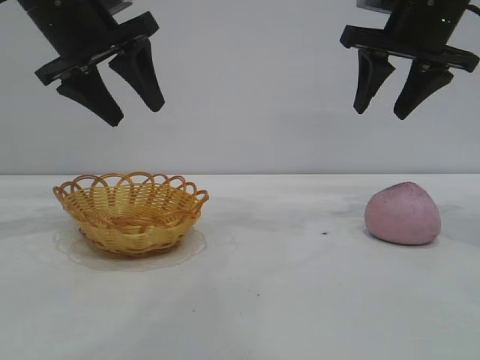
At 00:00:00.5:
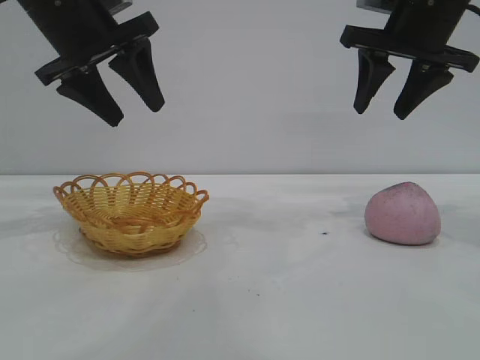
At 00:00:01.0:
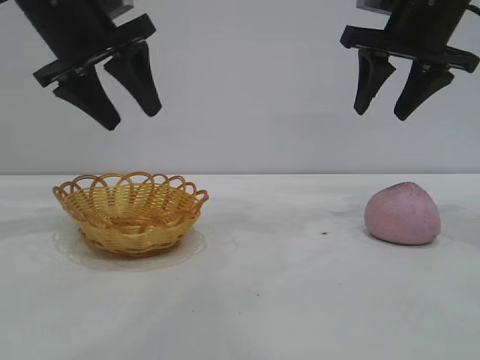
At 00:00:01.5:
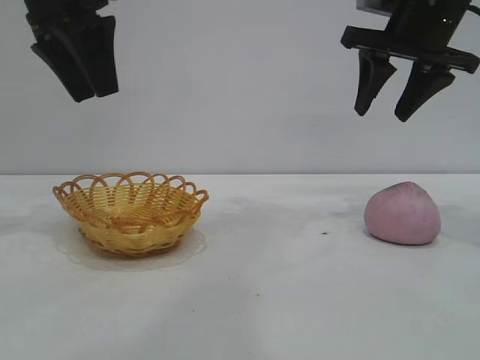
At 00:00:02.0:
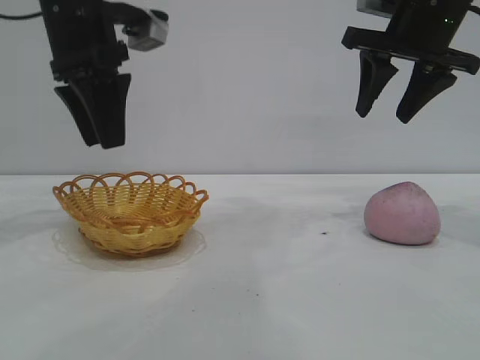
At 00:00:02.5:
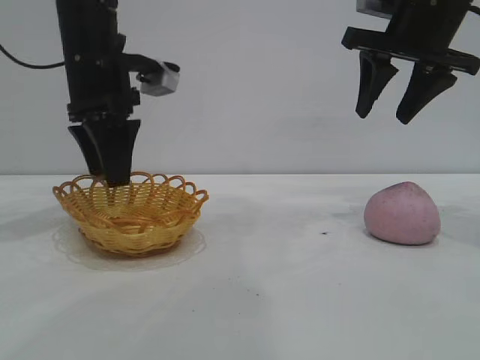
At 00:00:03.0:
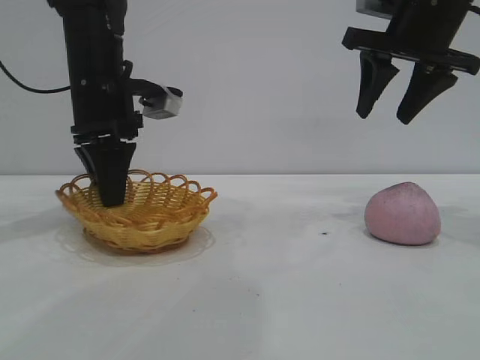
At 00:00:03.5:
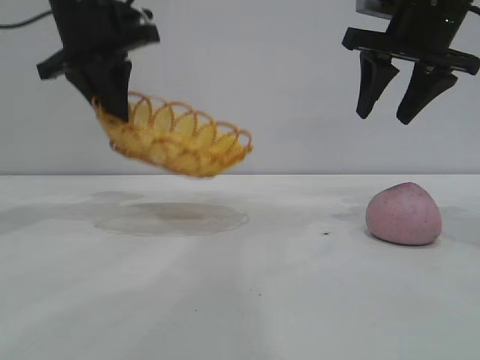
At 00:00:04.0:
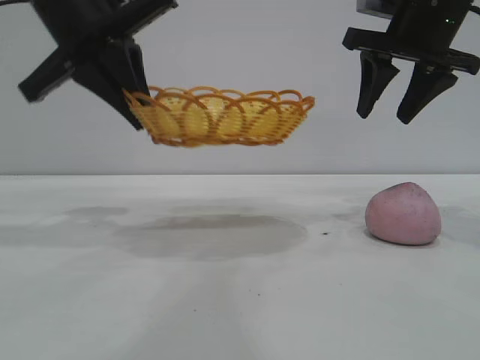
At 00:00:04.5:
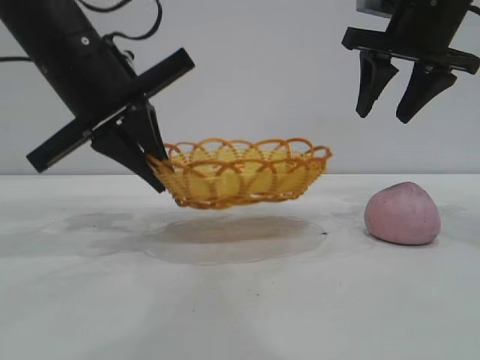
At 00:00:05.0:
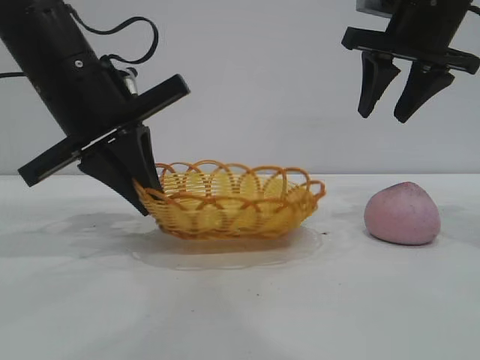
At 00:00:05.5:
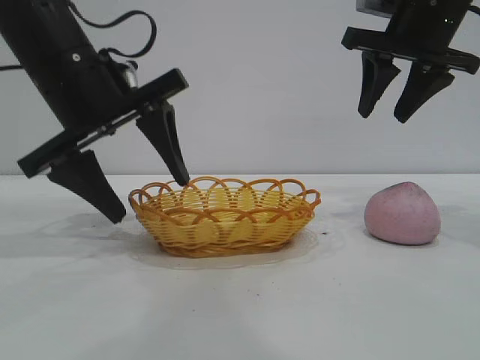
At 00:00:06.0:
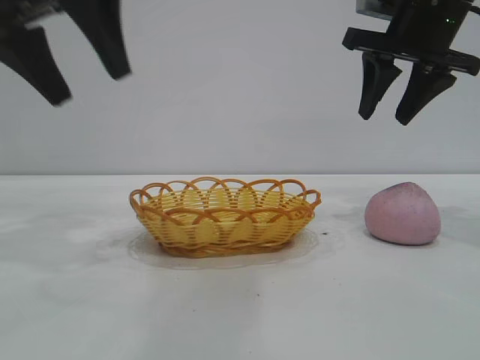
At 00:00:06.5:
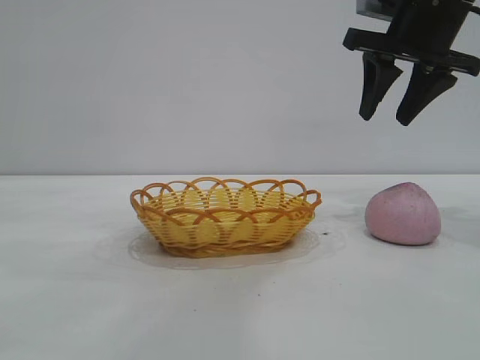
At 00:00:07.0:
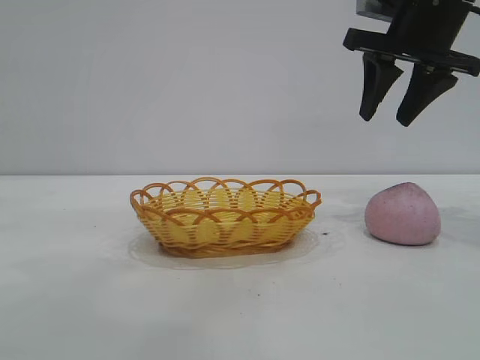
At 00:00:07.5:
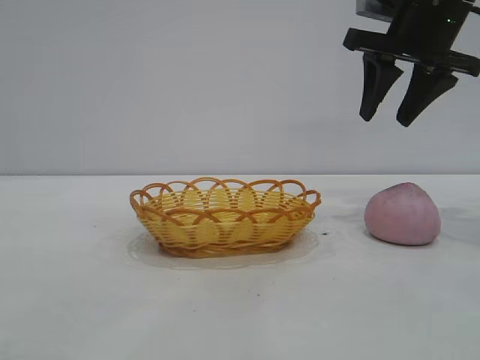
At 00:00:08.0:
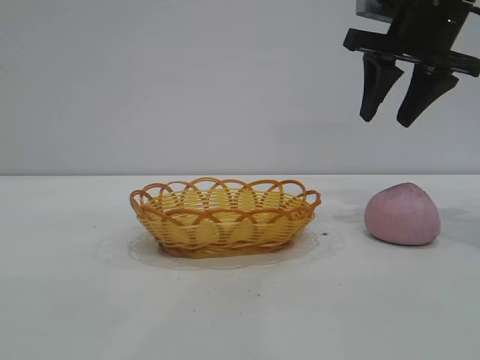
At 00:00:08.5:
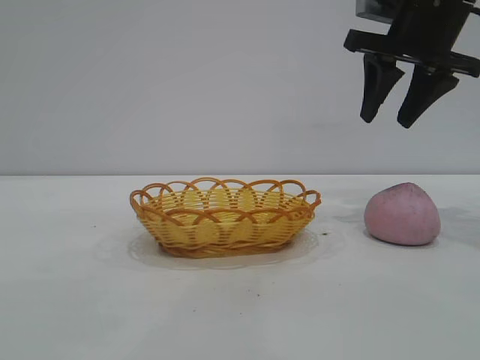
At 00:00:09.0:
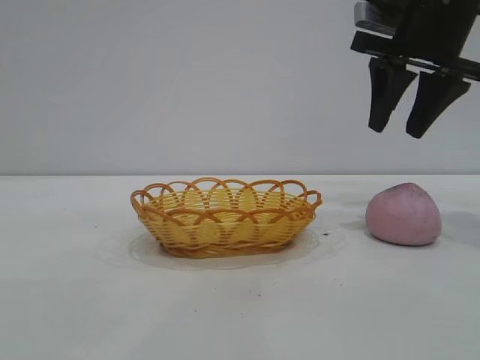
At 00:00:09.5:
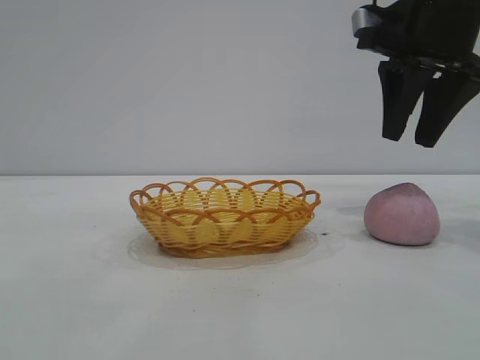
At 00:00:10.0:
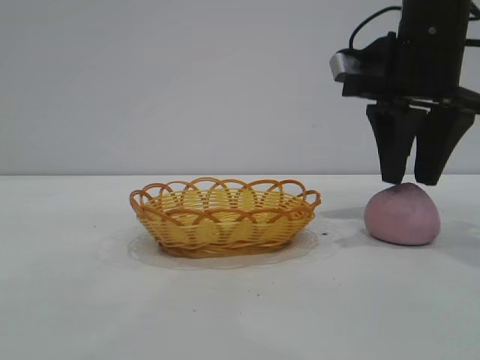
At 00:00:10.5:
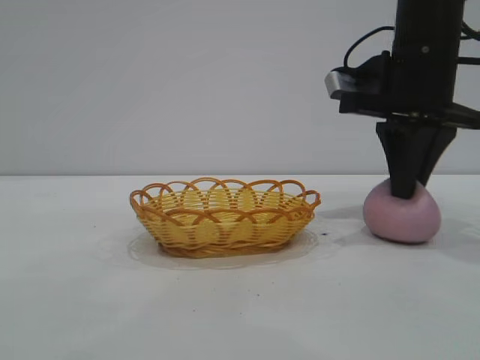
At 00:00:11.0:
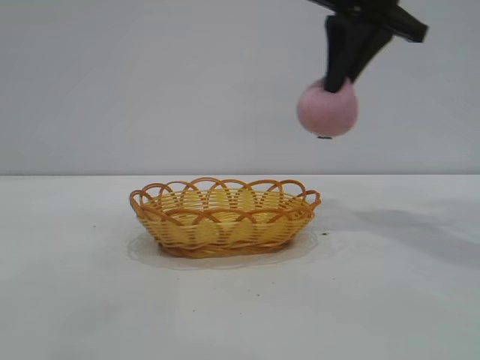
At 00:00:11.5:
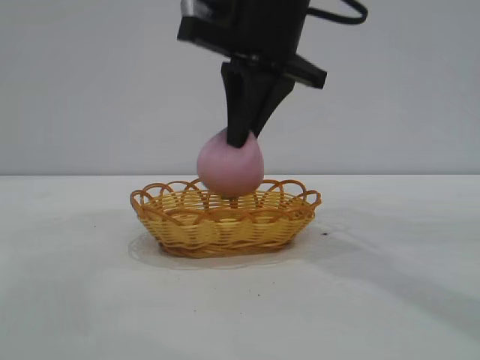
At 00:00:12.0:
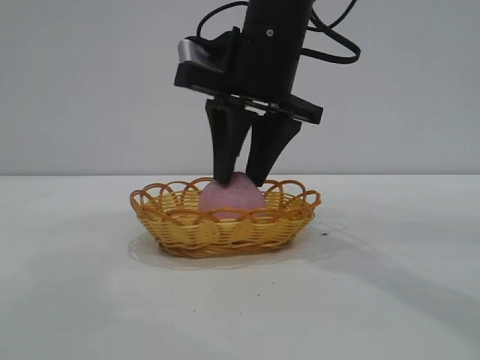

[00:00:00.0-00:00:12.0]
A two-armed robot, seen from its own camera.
Task of the whole recording: pick up the peach and put it into the basket.
Step, 00:00:00.0 to 00:00:06.0: Move the basket to the center of view.
Step, 00:00:06.5 to 00:00:10.5: Pick up the peach.
